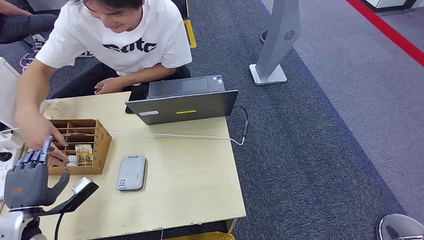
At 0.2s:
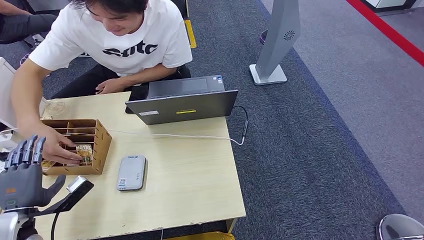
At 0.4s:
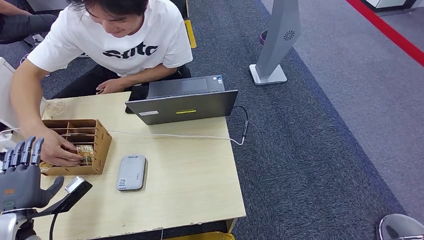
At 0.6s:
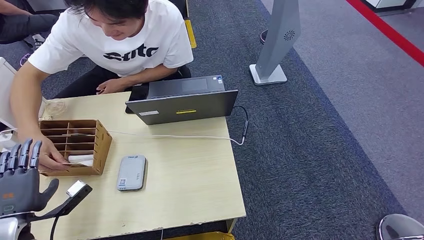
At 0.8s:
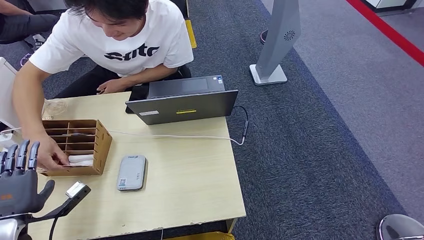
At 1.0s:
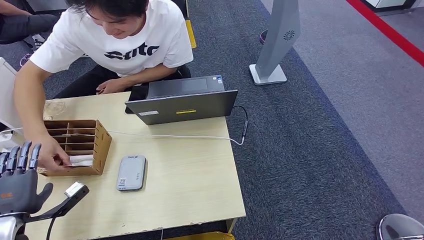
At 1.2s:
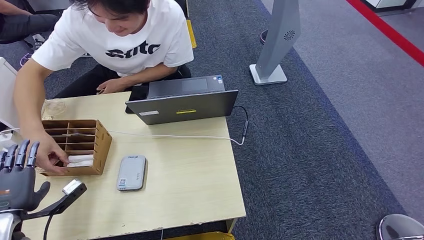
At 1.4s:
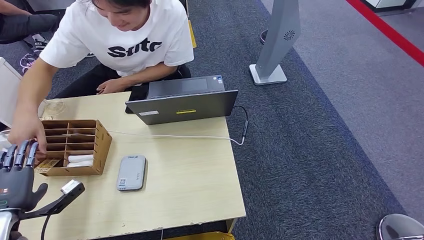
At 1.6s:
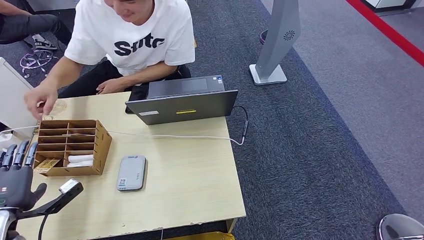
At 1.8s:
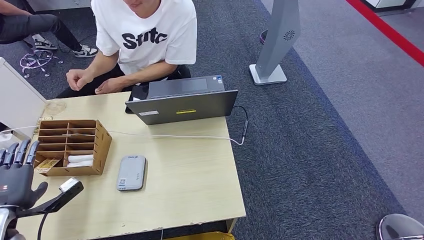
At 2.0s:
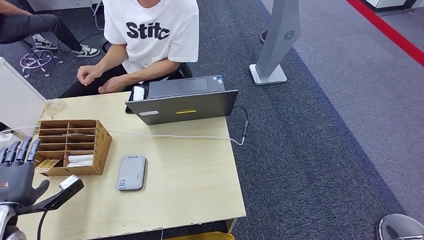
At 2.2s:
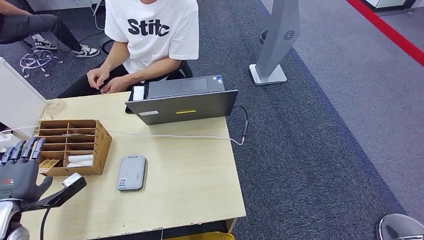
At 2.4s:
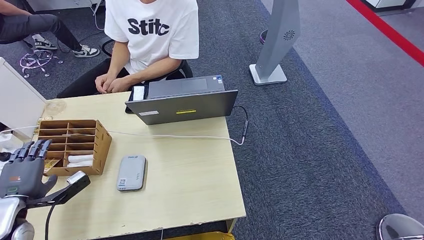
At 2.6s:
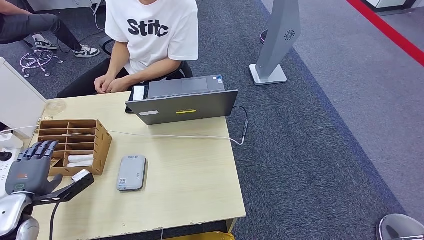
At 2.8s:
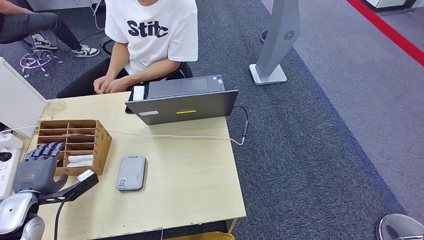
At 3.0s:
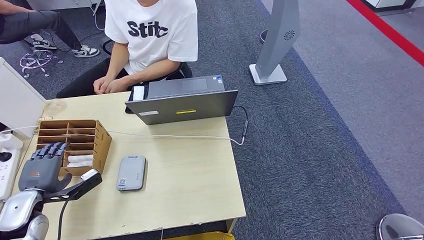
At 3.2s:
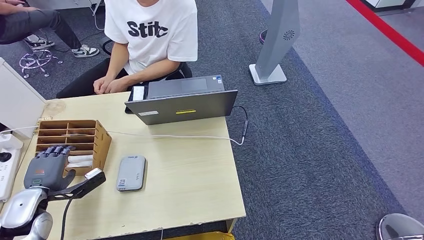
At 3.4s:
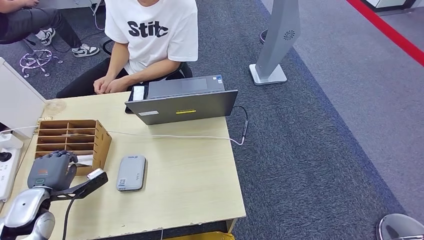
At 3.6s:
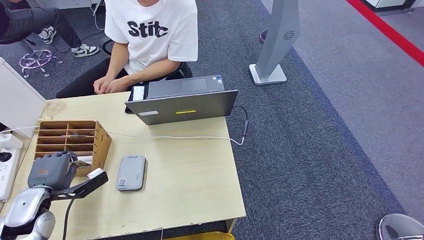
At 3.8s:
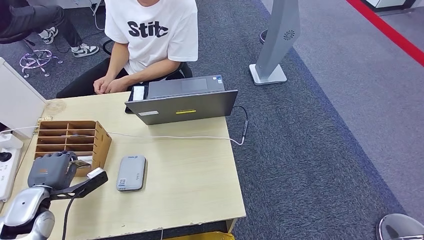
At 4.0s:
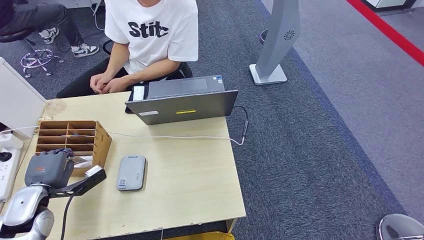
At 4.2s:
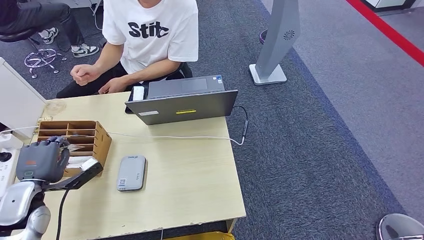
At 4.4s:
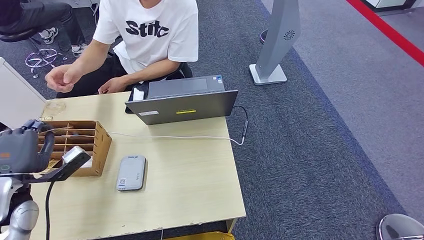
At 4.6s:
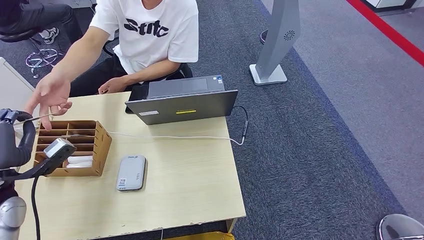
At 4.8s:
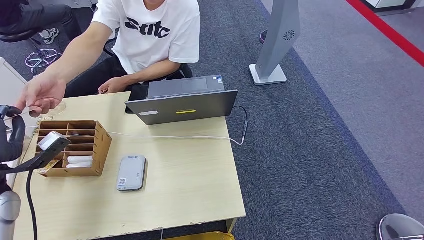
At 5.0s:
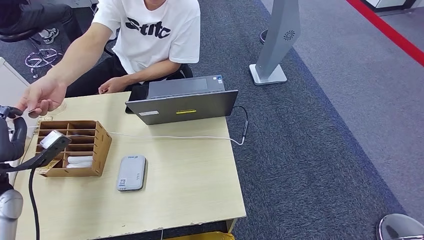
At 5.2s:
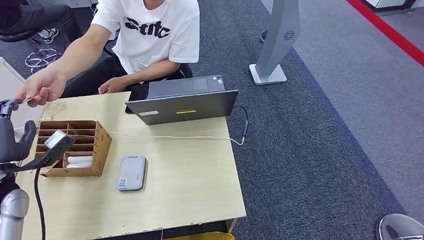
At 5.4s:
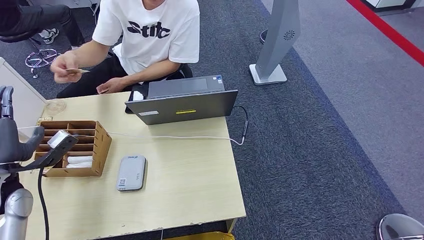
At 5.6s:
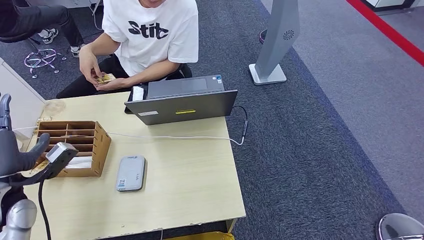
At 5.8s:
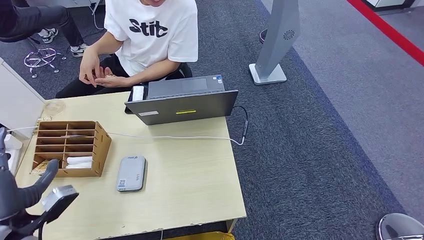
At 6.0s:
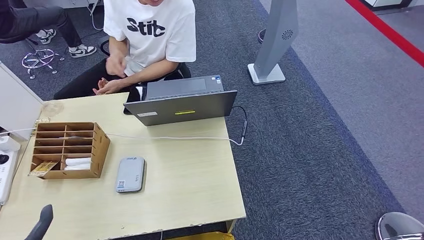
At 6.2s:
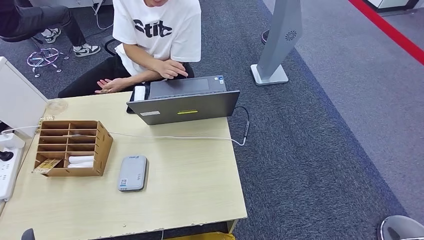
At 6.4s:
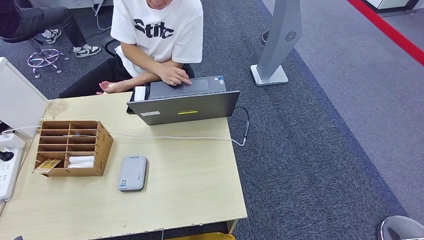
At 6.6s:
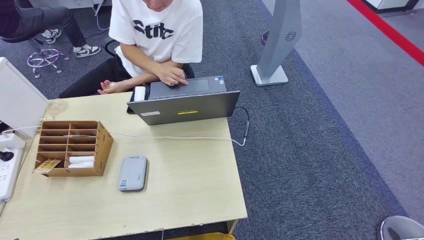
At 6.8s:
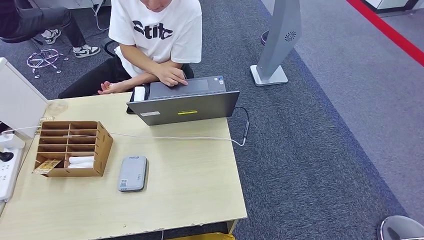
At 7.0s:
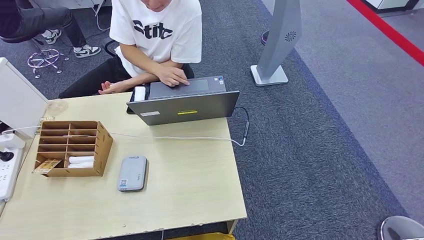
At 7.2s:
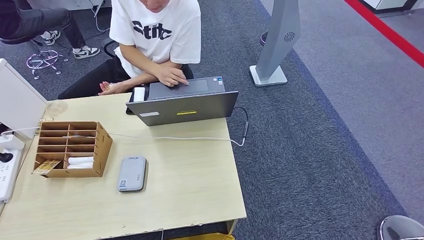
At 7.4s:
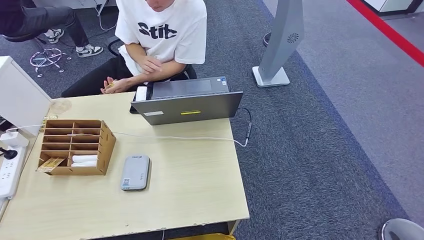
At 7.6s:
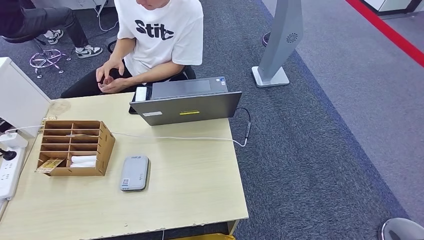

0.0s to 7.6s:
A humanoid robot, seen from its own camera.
Step, 3.2s to 4.4s: Pick up the room key from the key card box.
Step, 4.6s to 7.6s: Hand the room key to the person.
0.0s to 1.6s: There are only small adjustments of the hands.
1.6s to 3.0s: The left hand changes place by some 5 cm.
3.0s to 4.6s: The left hand heads upward, covering approximately 10 cm.
4.6s to 6.0s: The left hand travels backward and downward by about 20 cm.
6.0s to 7.6s: The left hand goes about 25 cm downward and backward.
